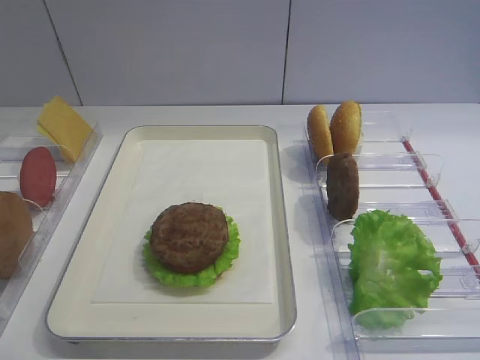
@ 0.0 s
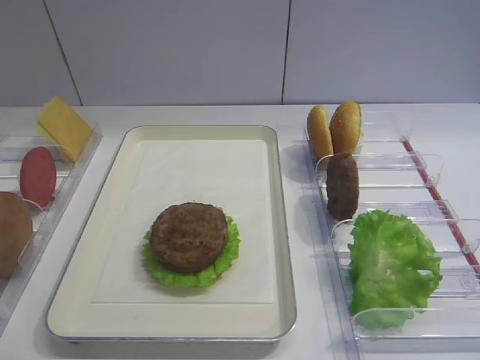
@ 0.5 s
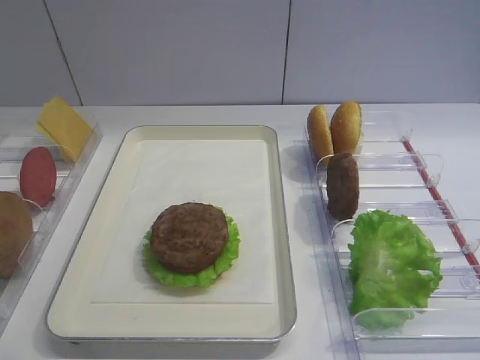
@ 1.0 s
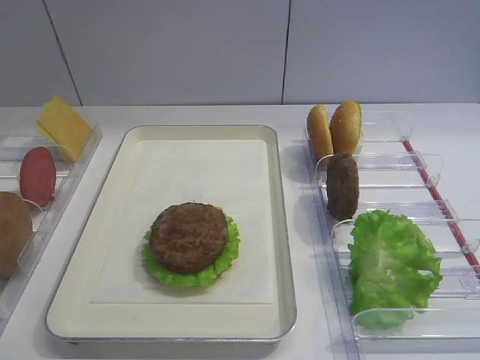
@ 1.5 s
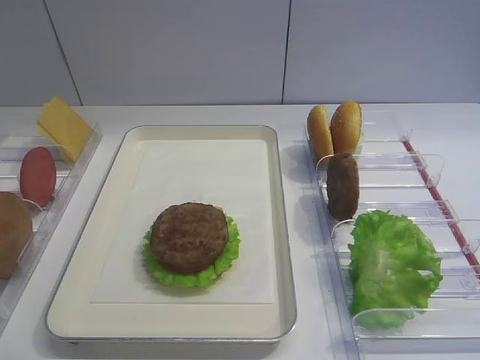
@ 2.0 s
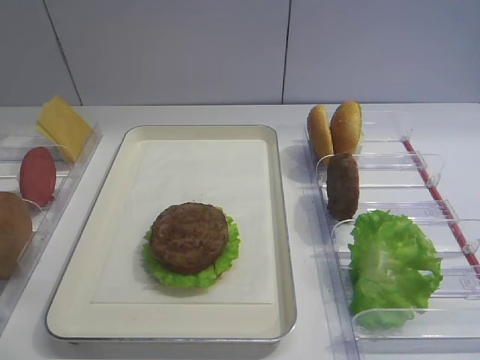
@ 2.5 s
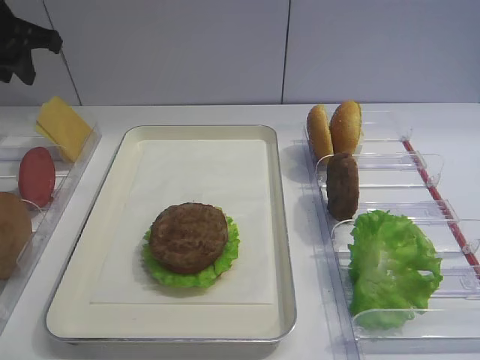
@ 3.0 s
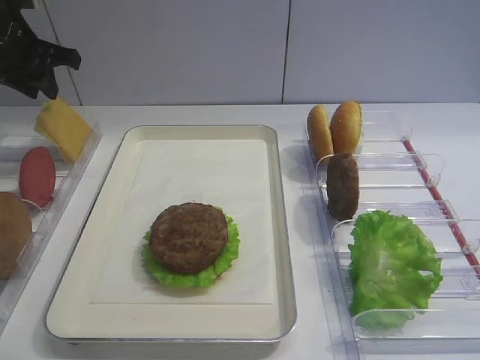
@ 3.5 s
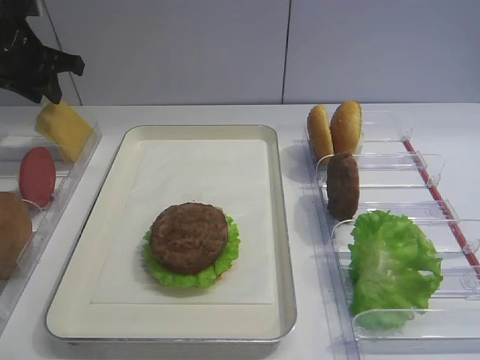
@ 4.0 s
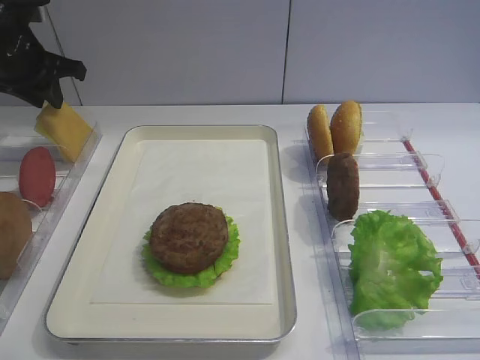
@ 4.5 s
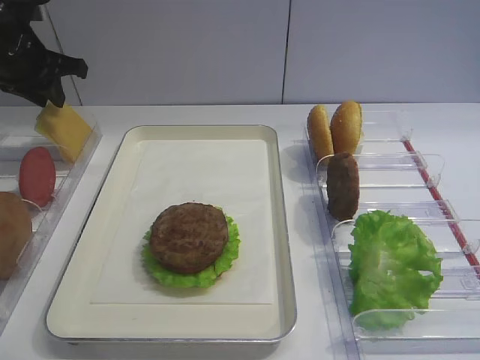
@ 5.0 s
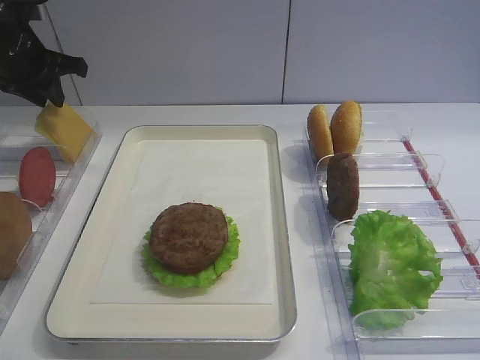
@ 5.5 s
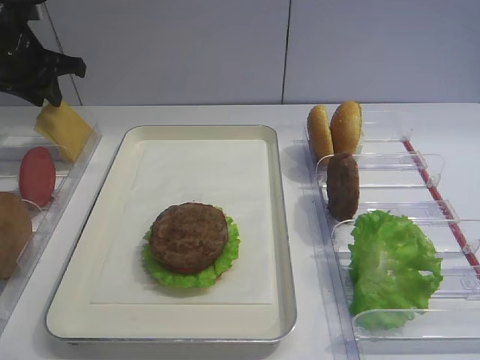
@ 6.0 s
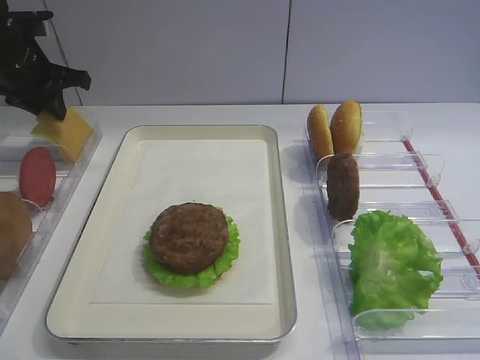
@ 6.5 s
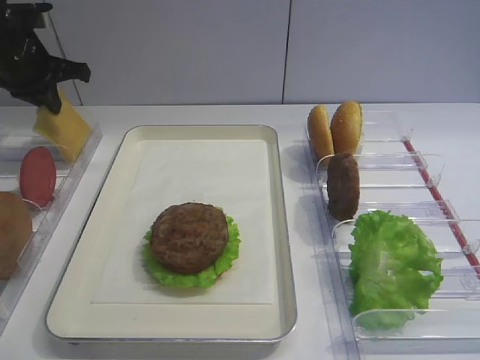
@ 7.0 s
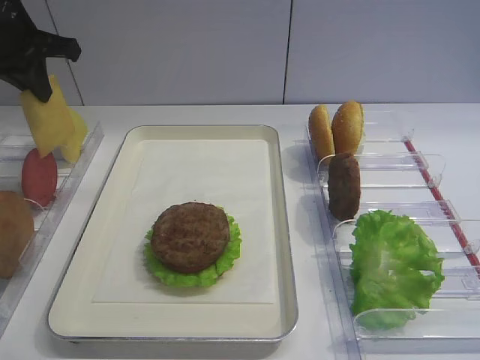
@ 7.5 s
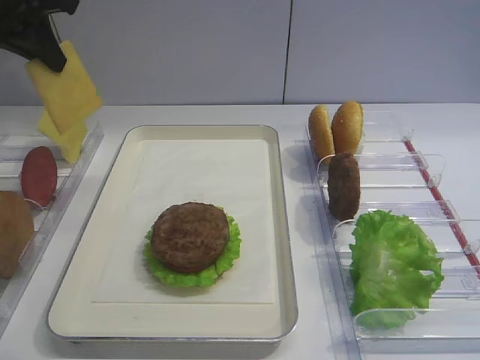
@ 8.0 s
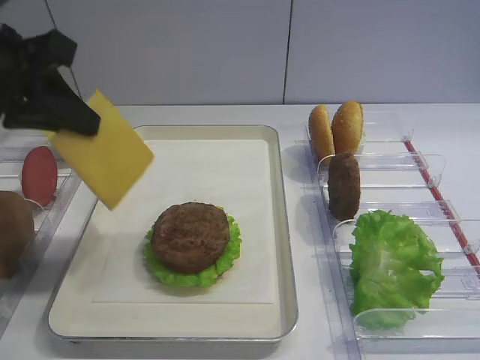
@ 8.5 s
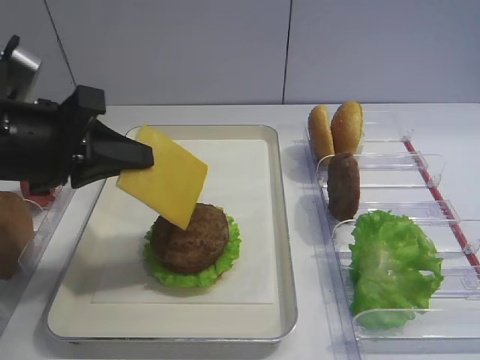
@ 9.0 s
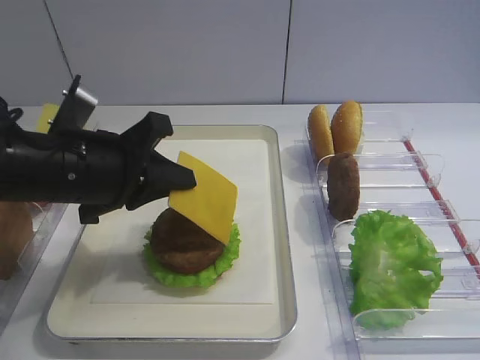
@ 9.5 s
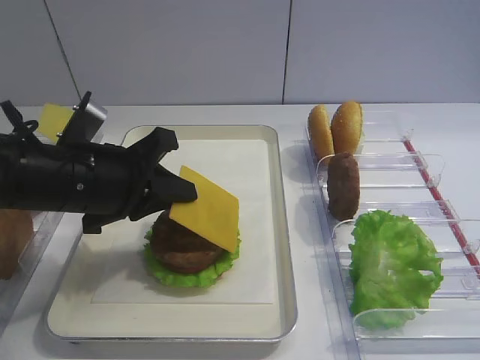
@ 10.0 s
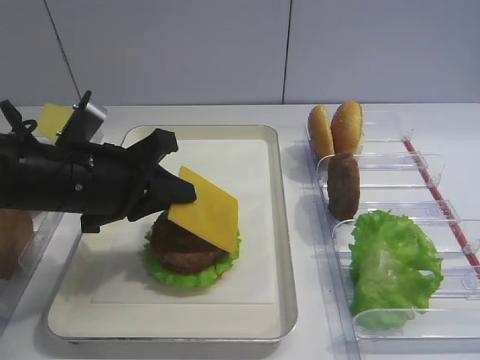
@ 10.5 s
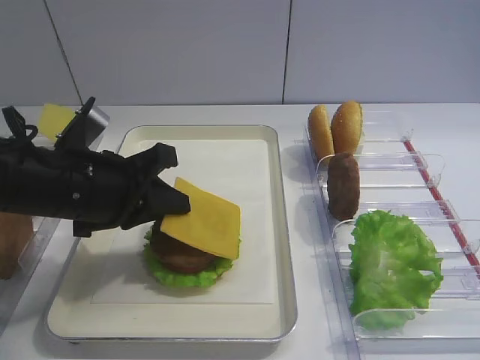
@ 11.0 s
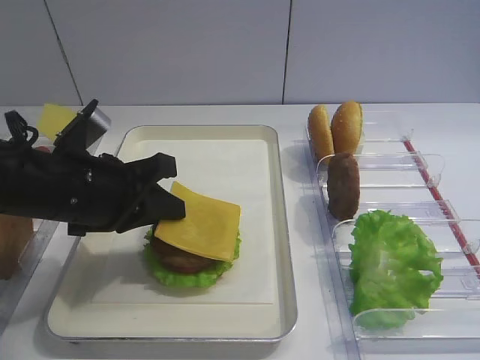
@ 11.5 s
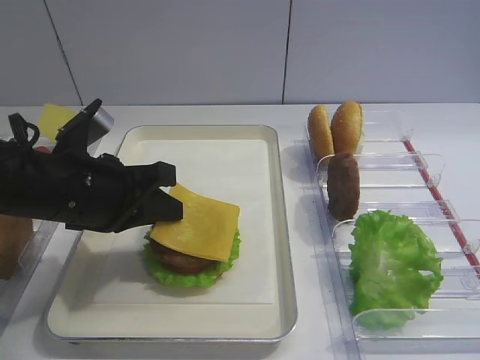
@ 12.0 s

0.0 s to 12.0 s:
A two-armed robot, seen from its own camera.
2.0 to 4.0 s: The left gripper shifts approximately 40 cm forward.
4.0 to 6.0 s: Both grippers stay put.
6.0 to 8.0 s: The left gripper moves upward and backward, approximately 10 cm, and closes.
8.0 to 10.0 s: The left gripper is displaced downward, backward and to the right by roughly 20 cm.
10.0 to 12.0 s: The grippers stay close to where they were, moving slightly.

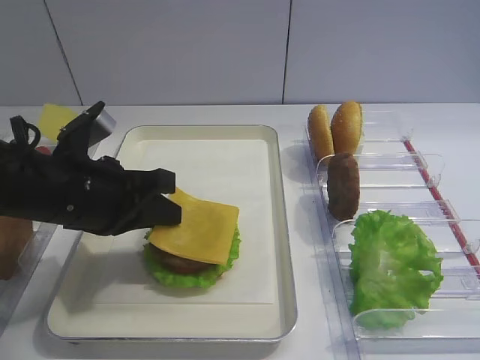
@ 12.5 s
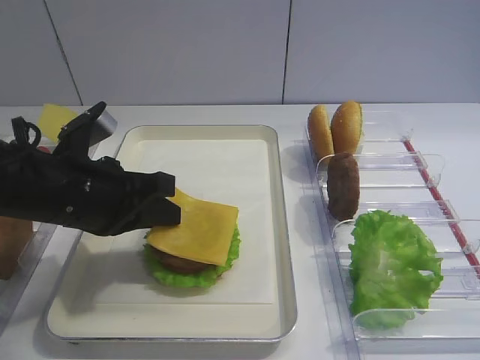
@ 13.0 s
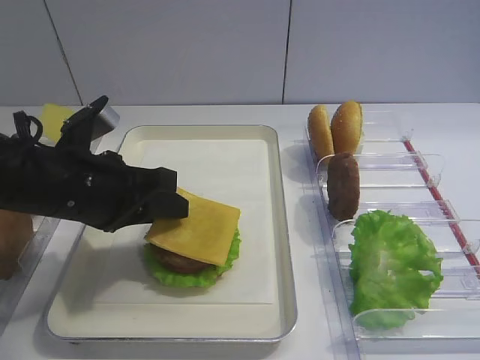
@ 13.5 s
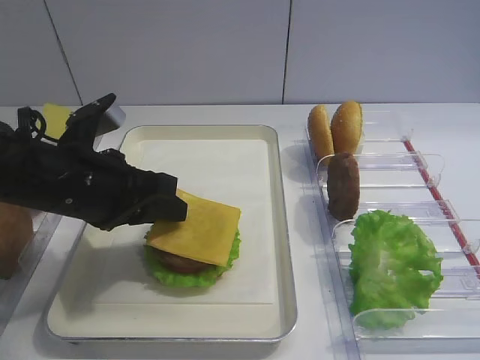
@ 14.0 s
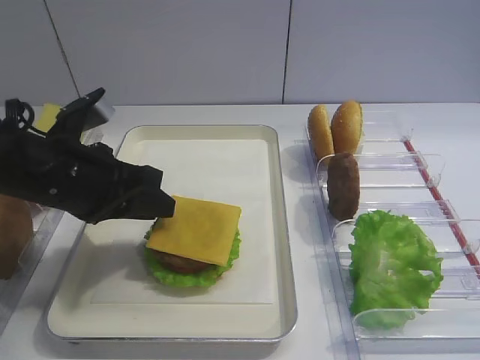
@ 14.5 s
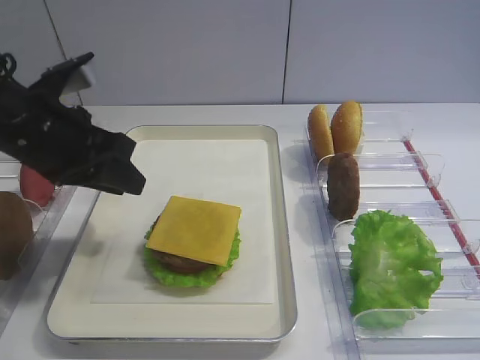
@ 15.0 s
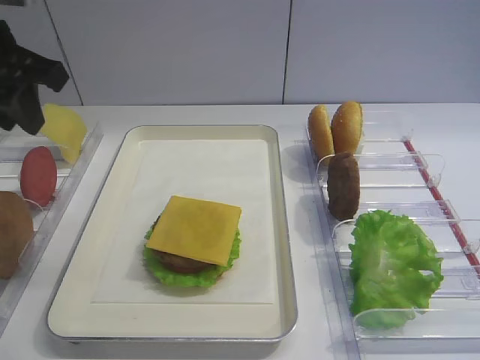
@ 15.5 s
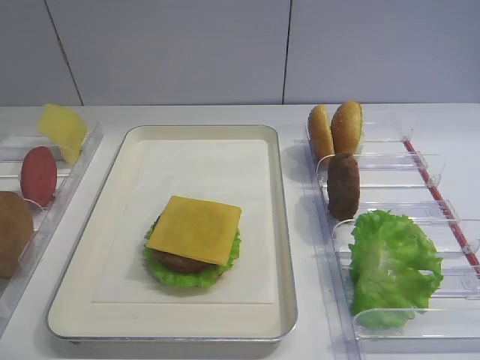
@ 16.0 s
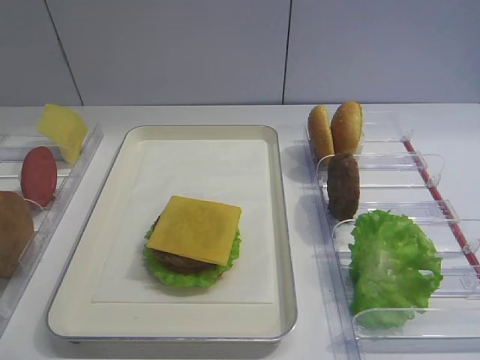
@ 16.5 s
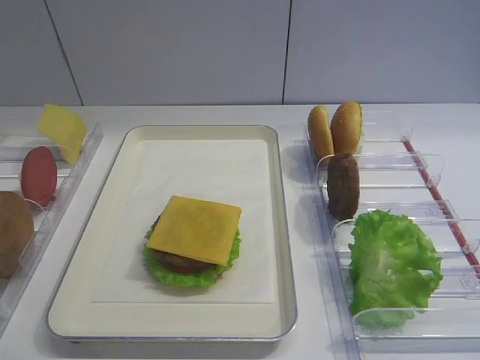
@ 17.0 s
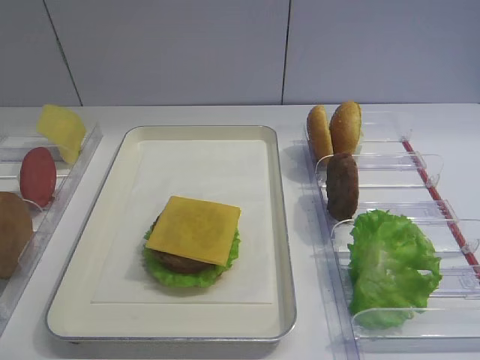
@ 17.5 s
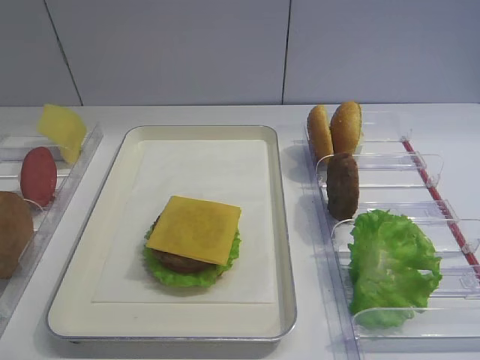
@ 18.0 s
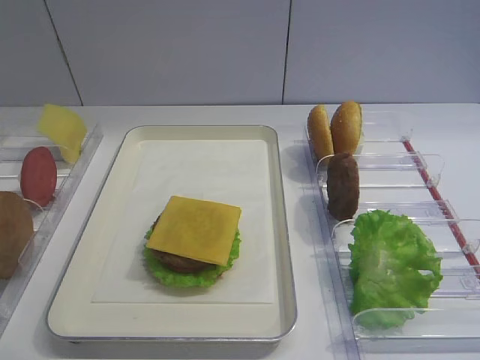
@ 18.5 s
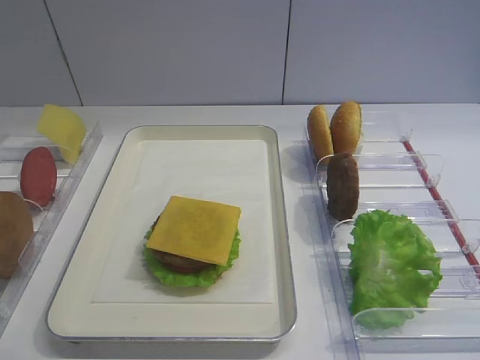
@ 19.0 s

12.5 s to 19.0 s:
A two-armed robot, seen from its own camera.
12.5 to 14.5 s: The left gripper opens.
14.5 to 17.0 s: The left gripper goes some 30 cm backward, to the left and upward.

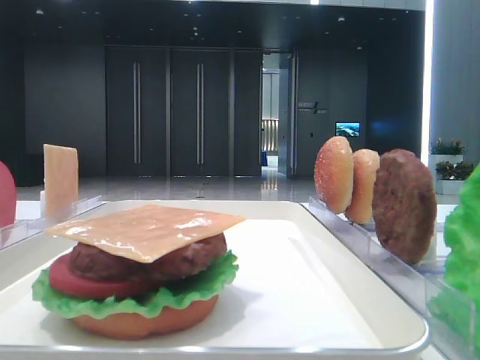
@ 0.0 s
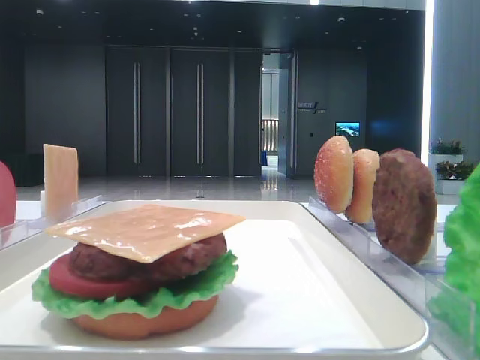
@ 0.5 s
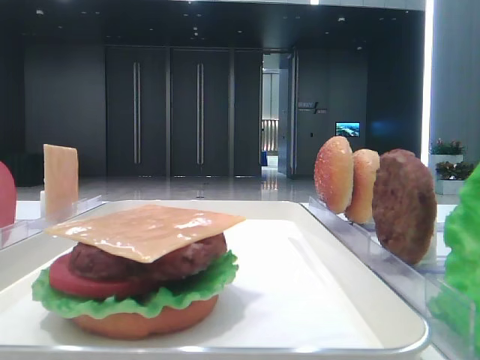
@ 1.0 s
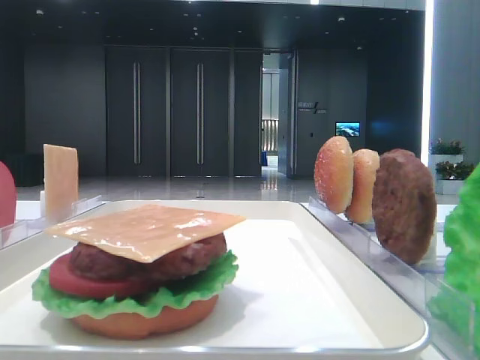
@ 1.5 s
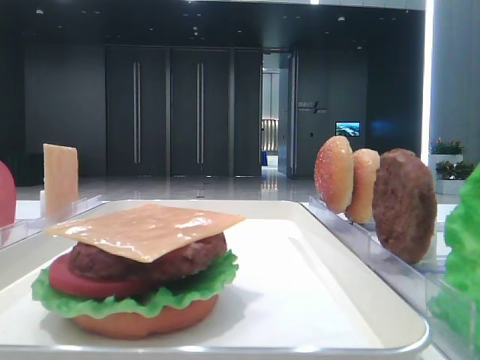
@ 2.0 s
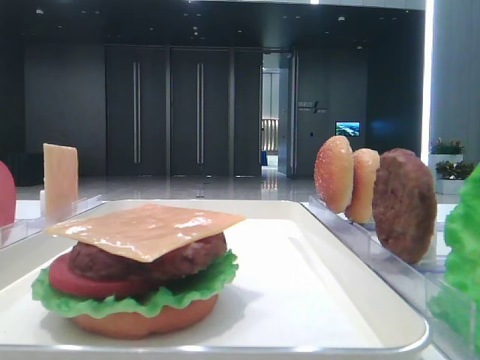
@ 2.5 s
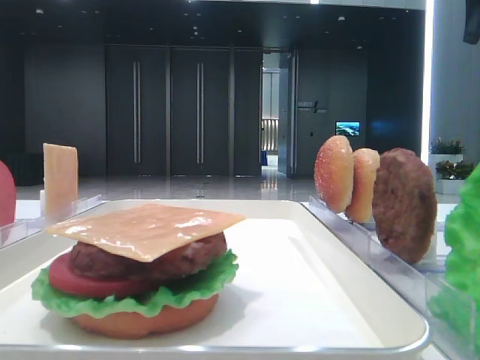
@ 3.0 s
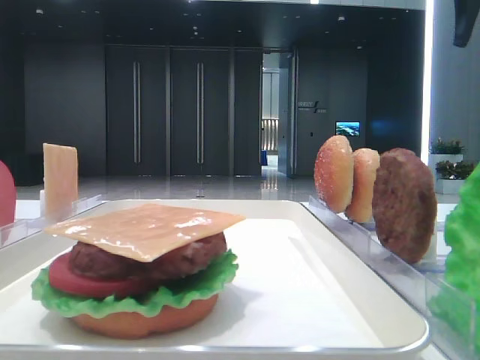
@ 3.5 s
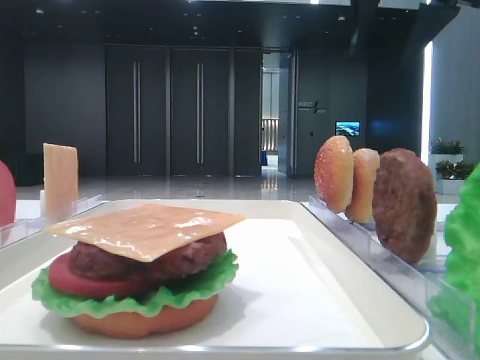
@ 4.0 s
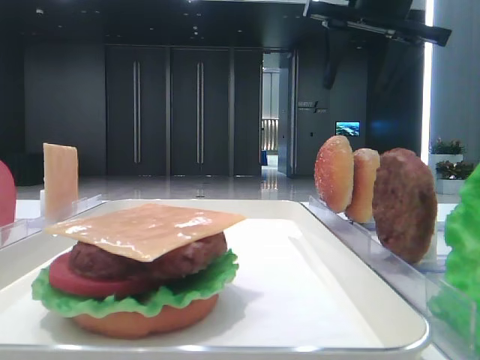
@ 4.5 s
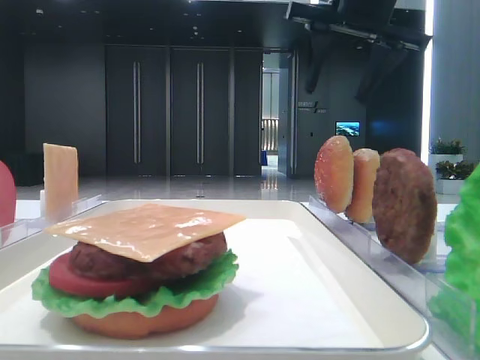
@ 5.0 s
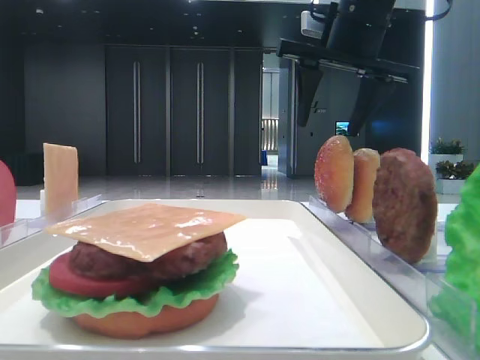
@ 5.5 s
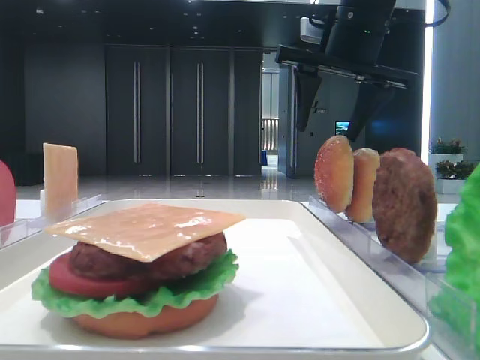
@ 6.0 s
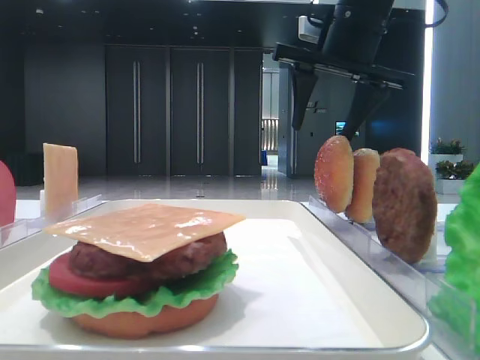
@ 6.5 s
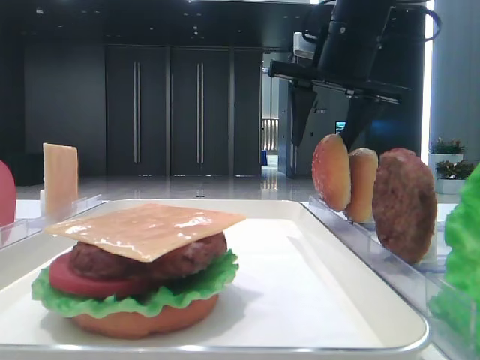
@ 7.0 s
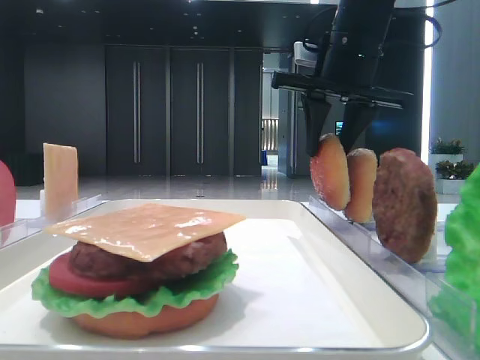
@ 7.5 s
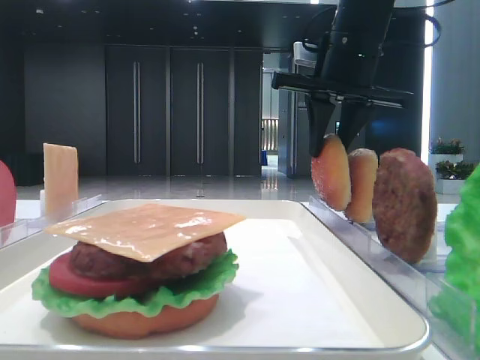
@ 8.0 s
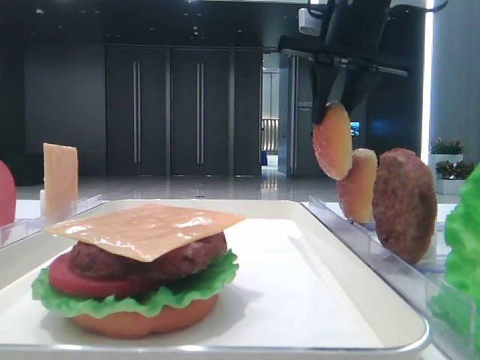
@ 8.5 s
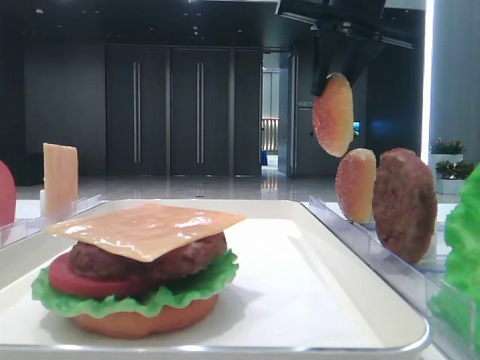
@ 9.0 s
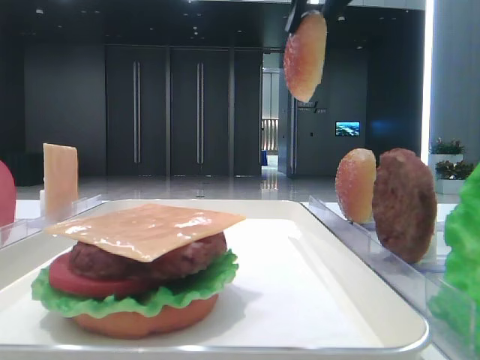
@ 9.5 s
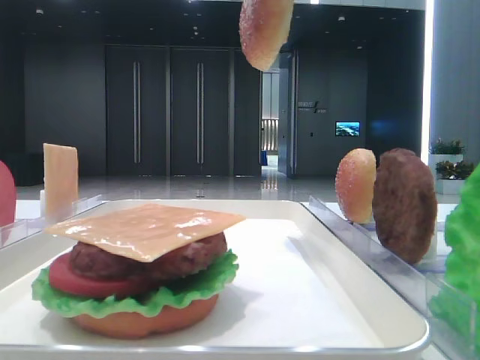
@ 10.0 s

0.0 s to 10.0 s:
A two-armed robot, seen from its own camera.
Step, 0.0 to 8.0 s: Pick up the top bread slice with the right hand.
2.0 to 4.0 s: The right gripper travels forward and to the left by approximately 25 cm.
4.0 to 6.0 s: The right gripper goes some 10 cm downward and to the left.
6.0 to 8.0 s: The right gripper closes.
8.0 to 10.0 s: The right gripper is displaced upward and backward by about 20 cm.
